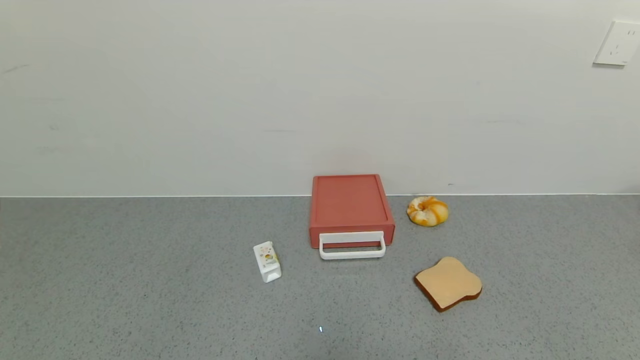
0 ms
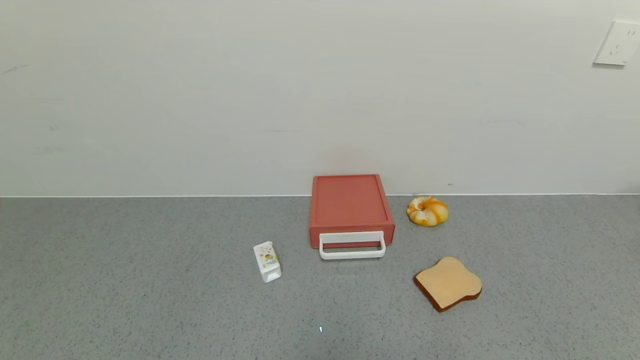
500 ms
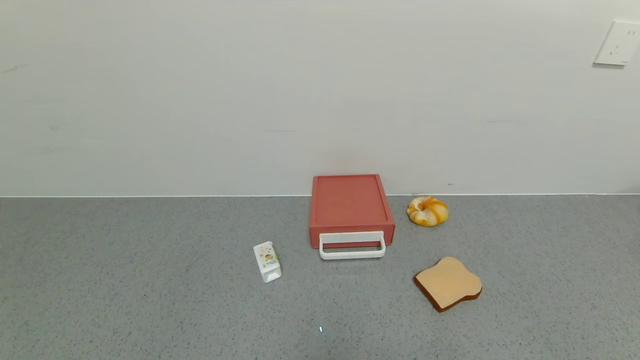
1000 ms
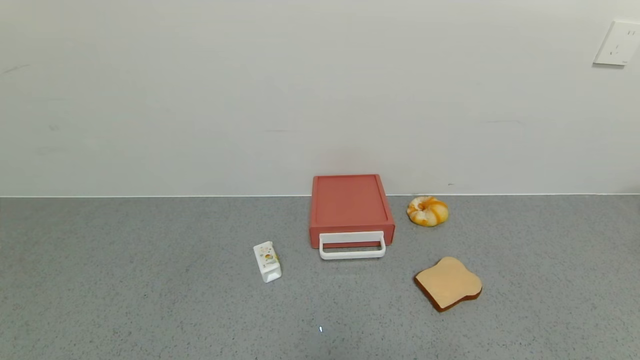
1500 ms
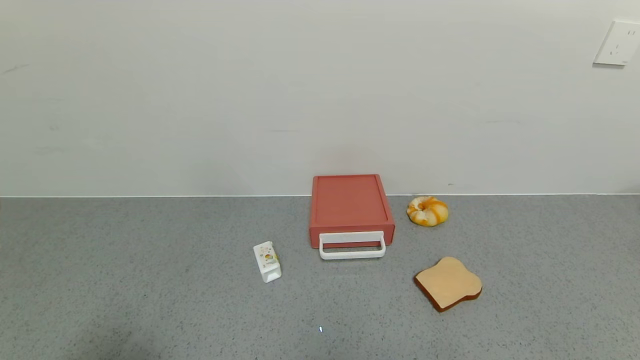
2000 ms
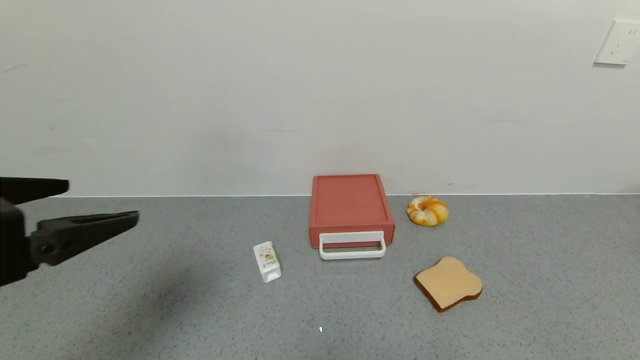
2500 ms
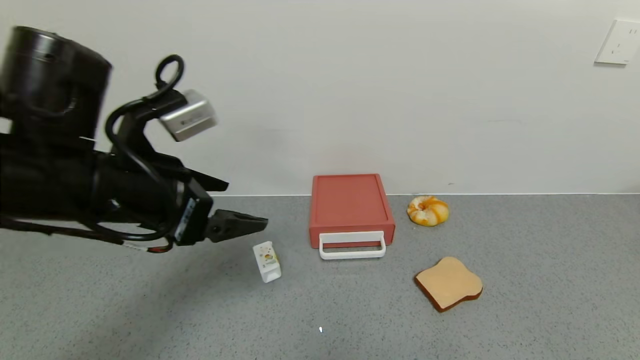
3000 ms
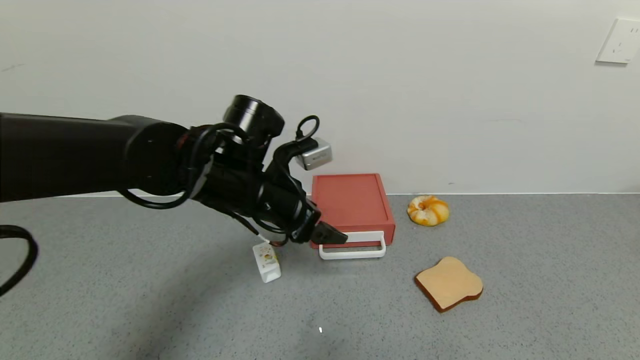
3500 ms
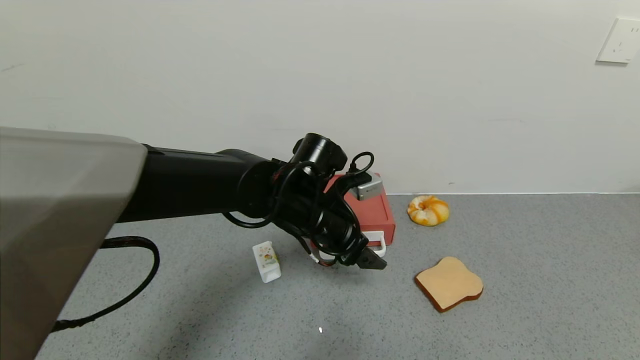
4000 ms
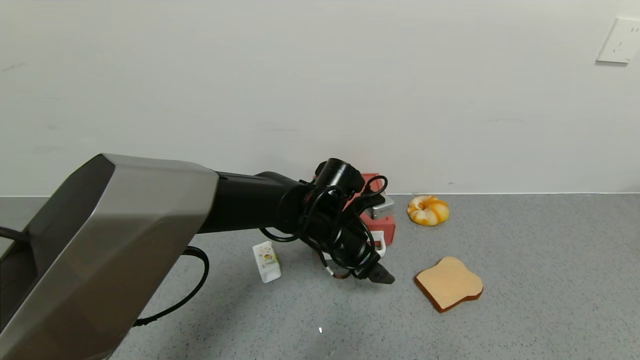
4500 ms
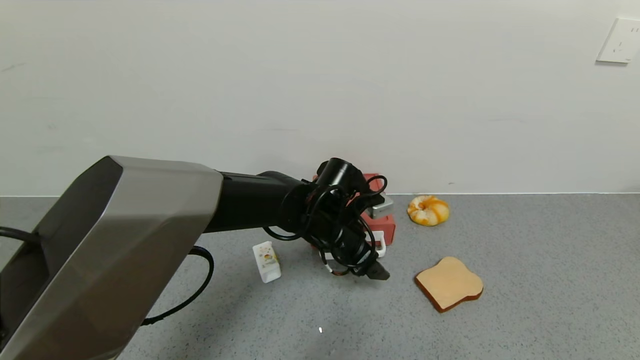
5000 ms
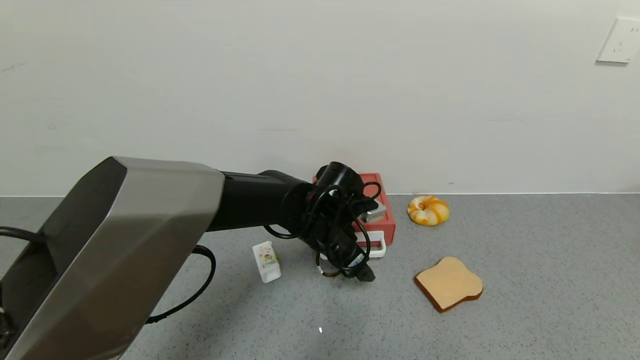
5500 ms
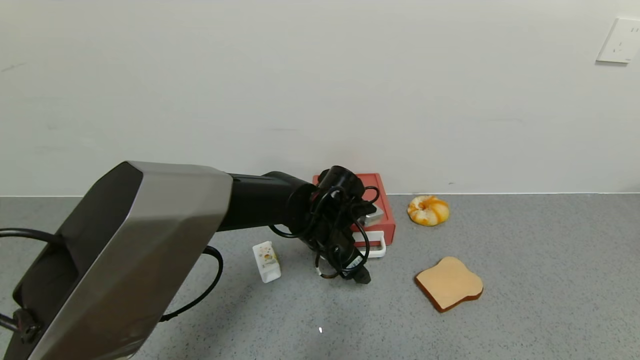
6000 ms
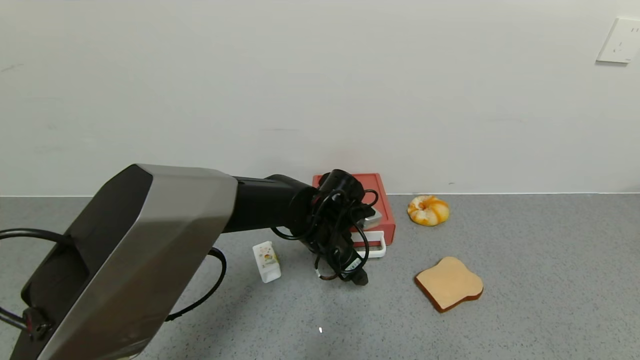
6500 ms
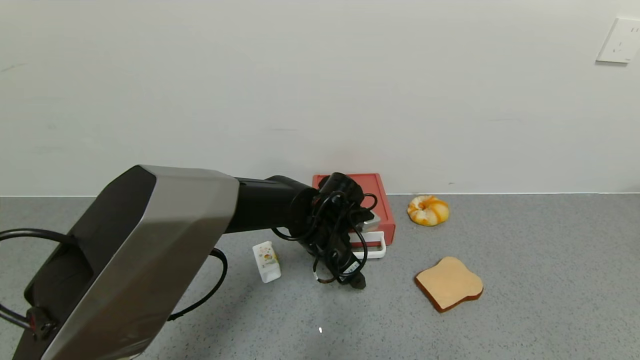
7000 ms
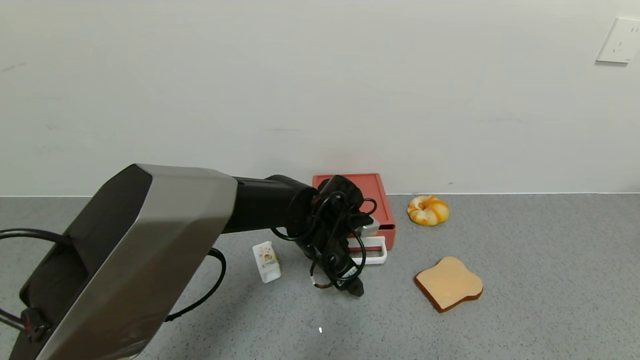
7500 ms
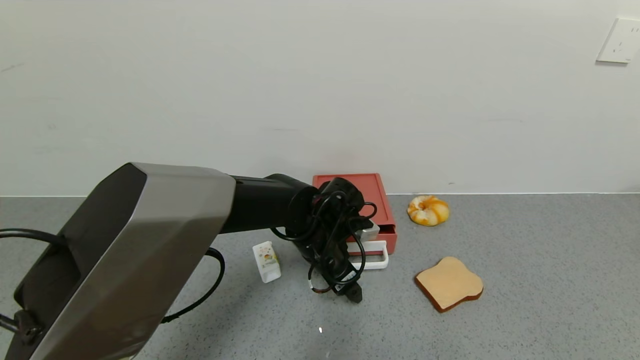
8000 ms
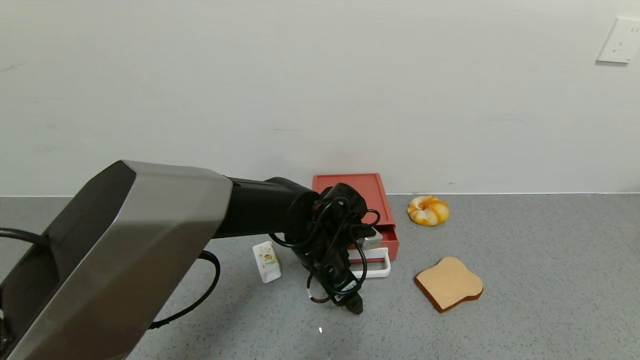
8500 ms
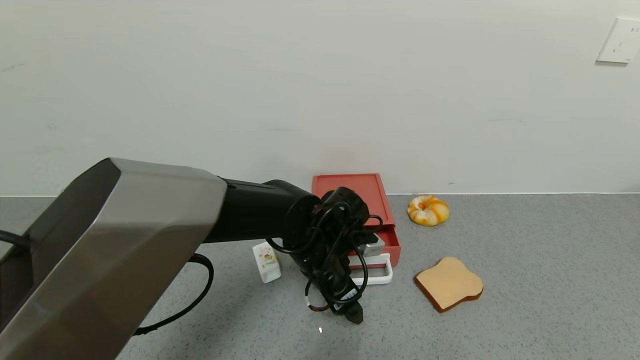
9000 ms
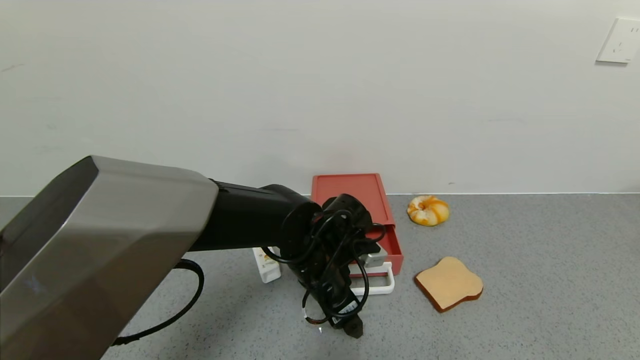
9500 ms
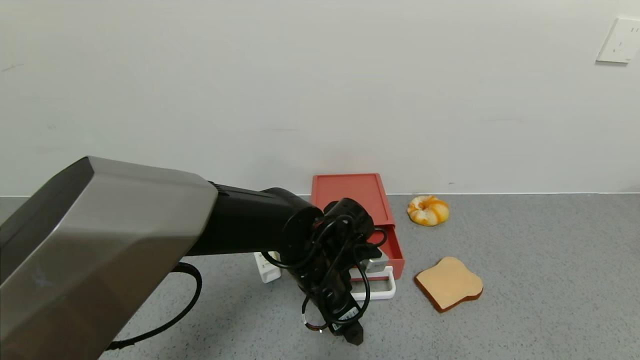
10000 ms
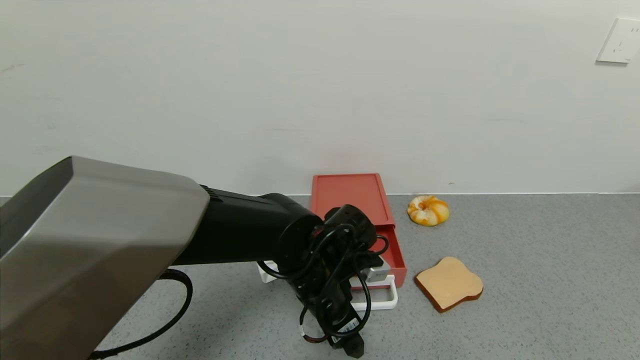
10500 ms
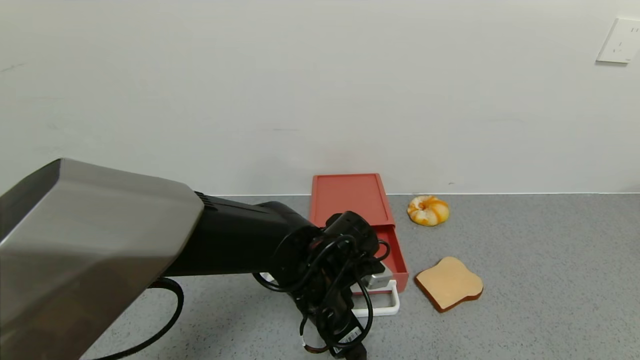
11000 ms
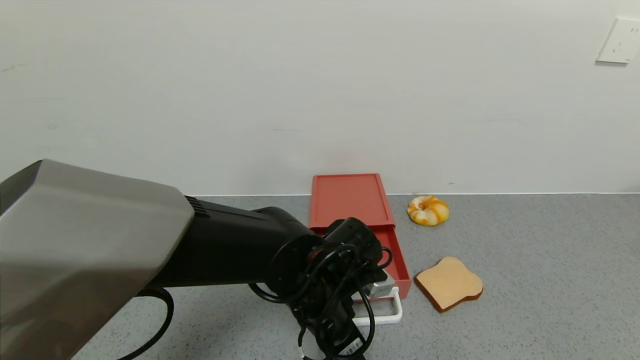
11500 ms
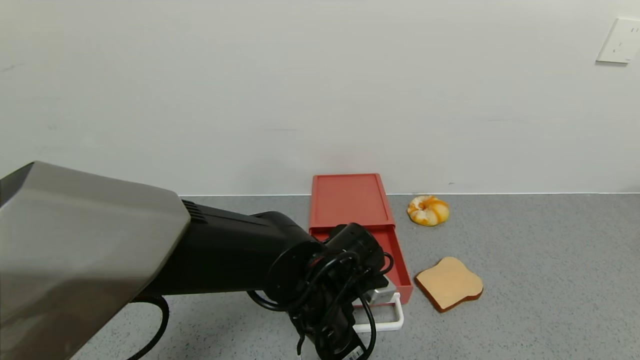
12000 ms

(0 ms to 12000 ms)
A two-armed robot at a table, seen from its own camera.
Task of the whole recording: use the gripper to open the drawer and close the red drawer.
2000 ms - 4000 ms: The left gripper is displaced forward and to the right by some 40 cm.
4000 ms - 6000 ms: The left gripper travels downward by about 5 cm.
6000 ms - 8000 ms: The grippers stay close to where they were, moving slightly.
8000 ms - 10000 ms: The left gripper heads backward, covering roughly 5 cm.
10000 ms - 12000 ms: The grippers stay close to where they were, moving slightly.

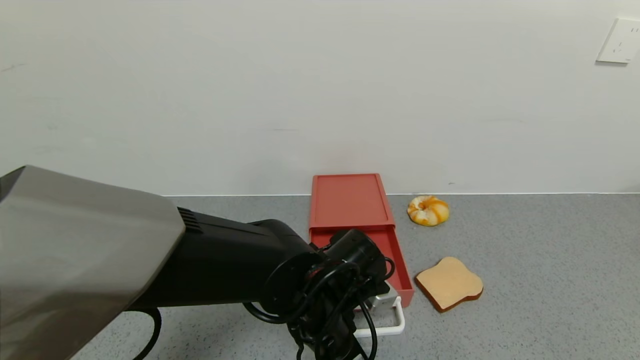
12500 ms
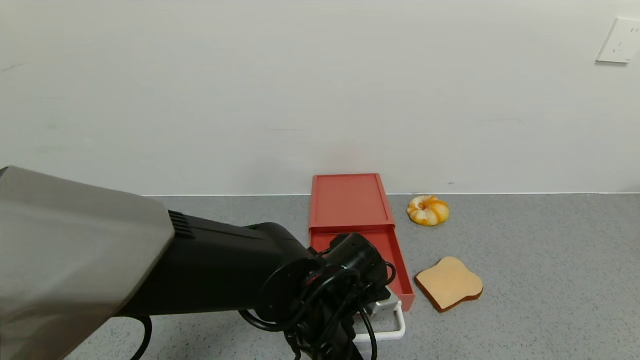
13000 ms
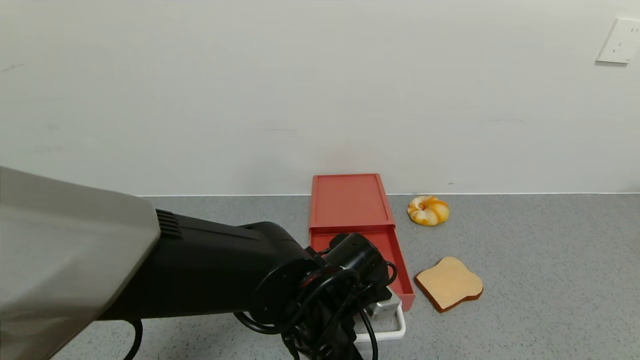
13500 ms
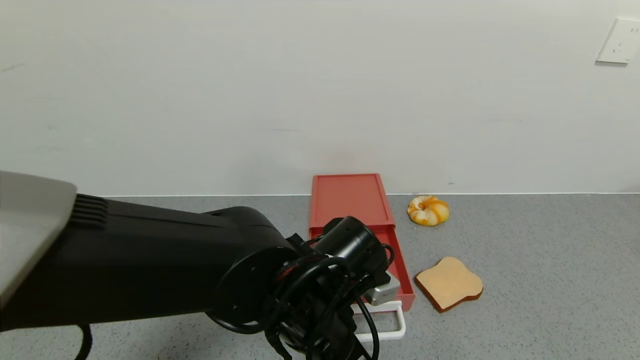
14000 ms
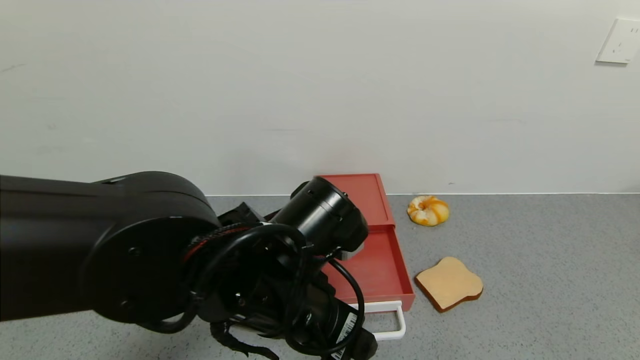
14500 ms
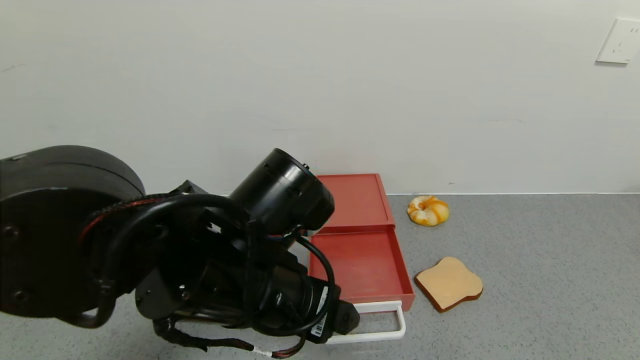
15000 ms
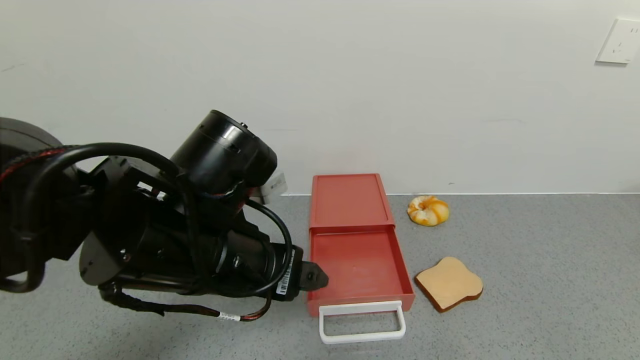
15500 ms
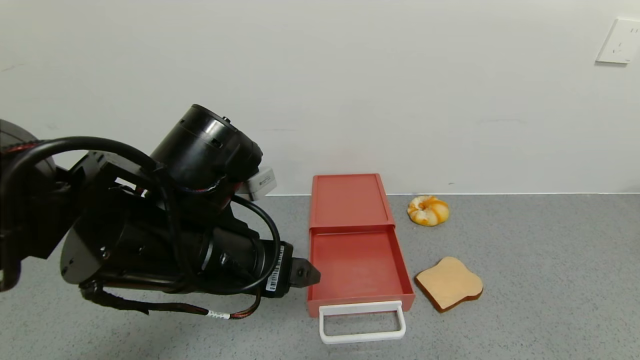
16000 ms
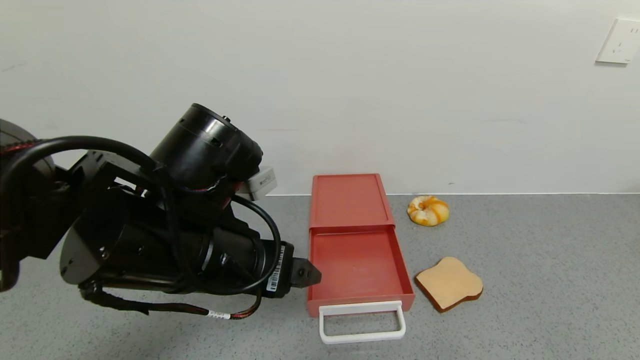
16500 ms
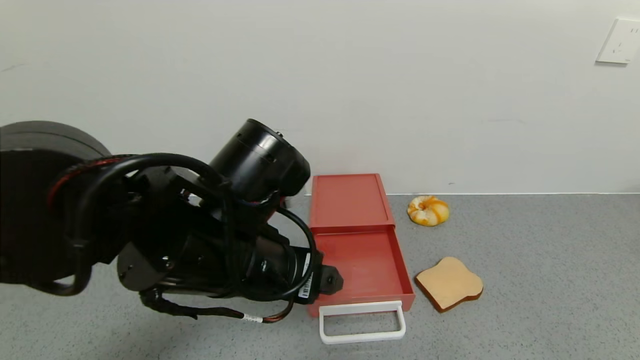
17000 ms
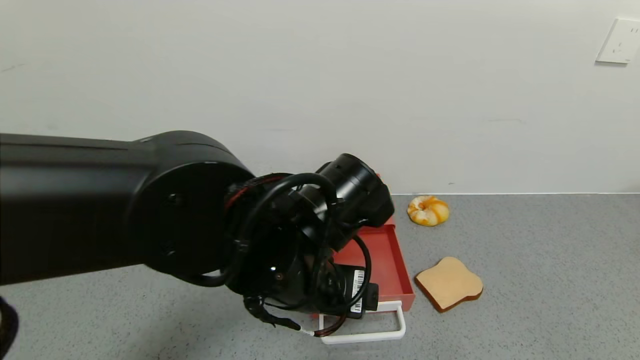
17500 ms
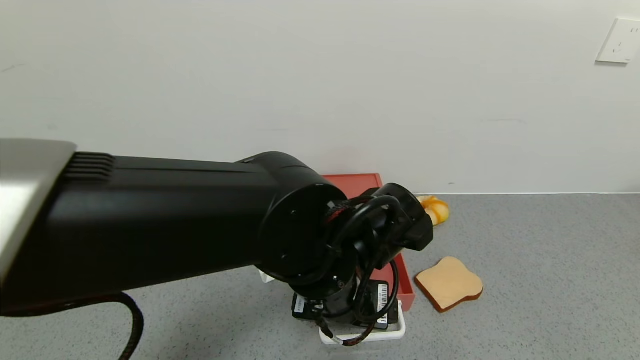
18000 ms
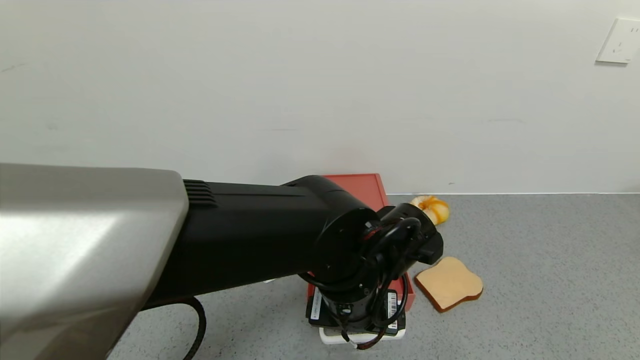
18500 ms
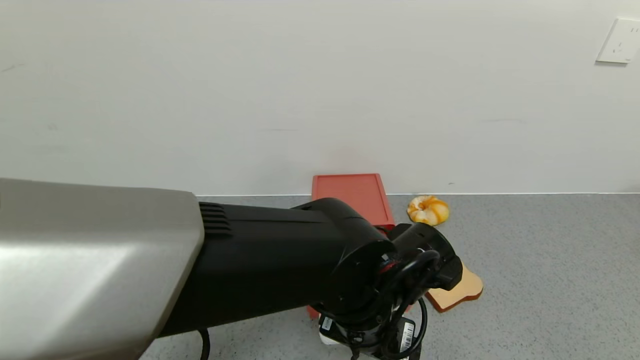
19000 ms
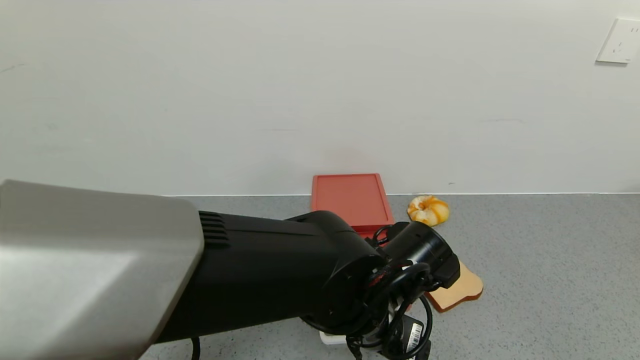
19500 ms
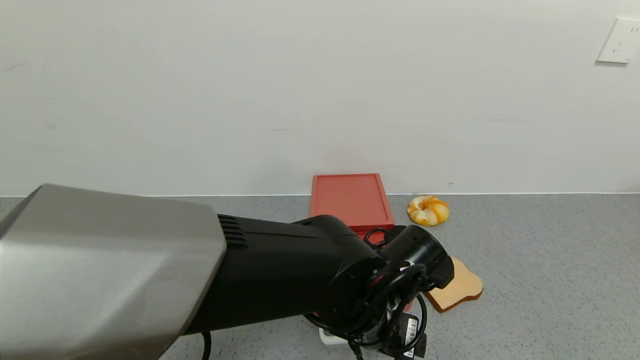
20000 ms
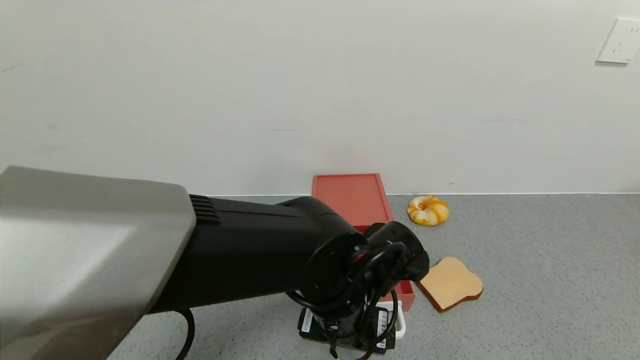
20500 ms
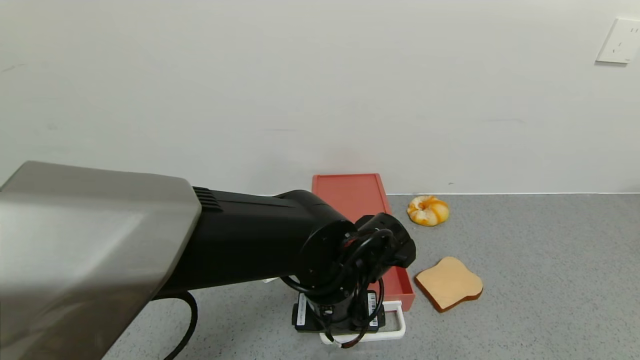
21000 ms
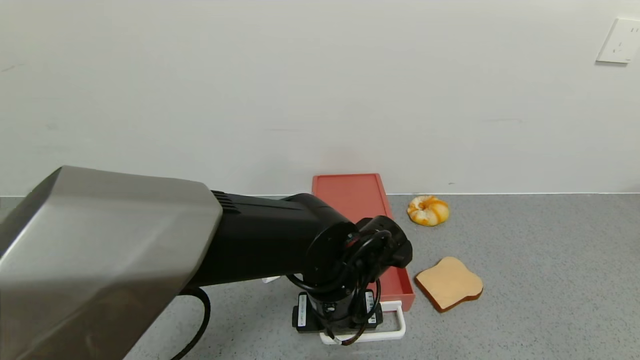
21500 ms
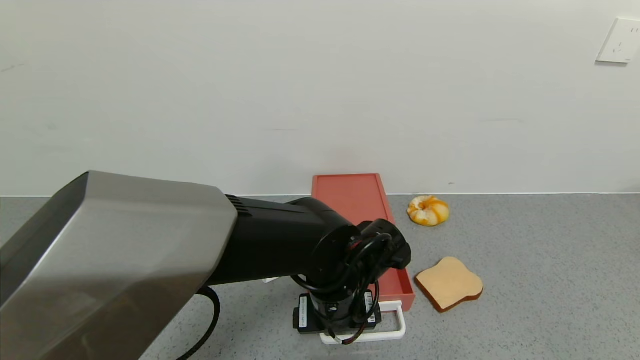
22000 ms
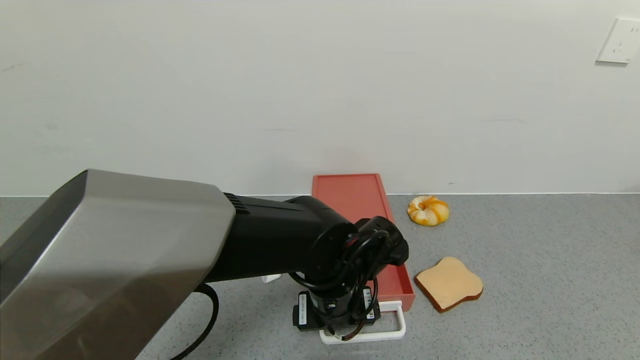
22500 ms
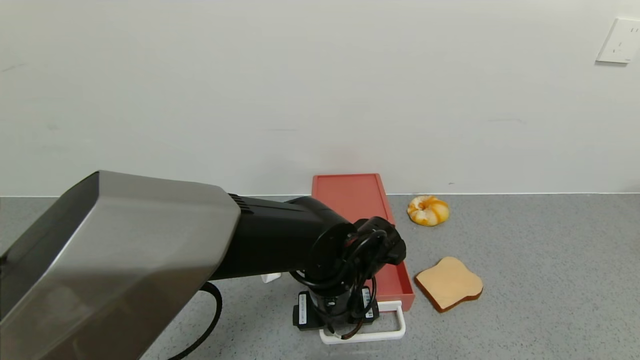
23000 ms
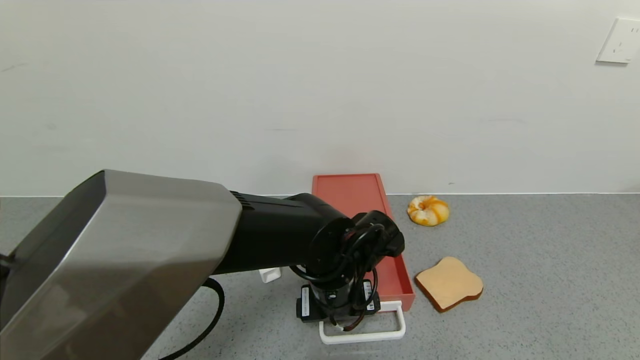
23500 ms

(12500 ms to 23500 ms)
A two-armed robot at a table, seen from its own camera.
Task of the whole recording: use the gripper to open the drawer and close the red drawer.
12500 ms - 14500 ms: The left gripper goes some 10 cm upward.
14500 ms - 16000 ms: The left gripper travels to the left by about 5 cm.
16000 ms - 18000 ms: The left gripper is displaced to the right and downward by about 15 cm.
18000 ms - 20000 ms: The left gripper is displaced downward by some 5 cm.
21500 ms - 23500 ms: There are only small adjustments of the grippers.
